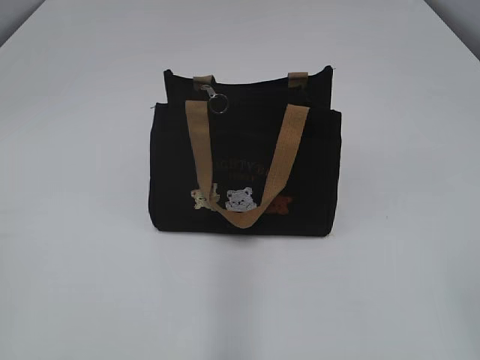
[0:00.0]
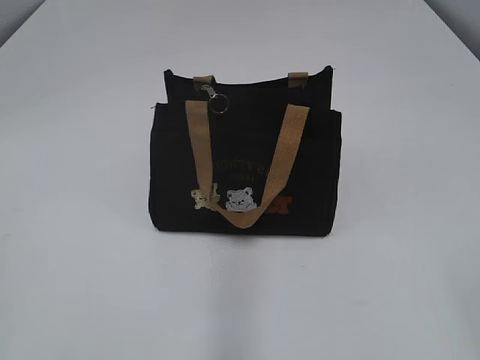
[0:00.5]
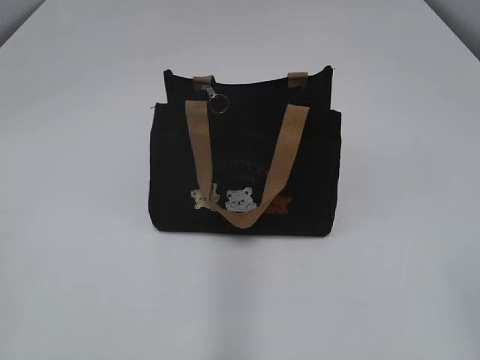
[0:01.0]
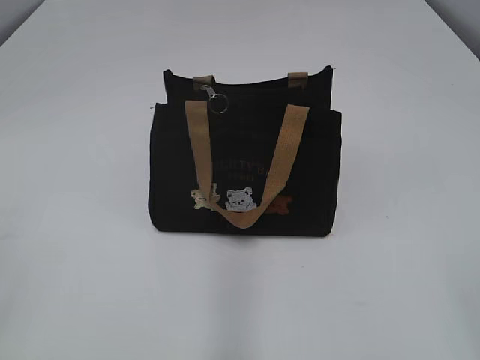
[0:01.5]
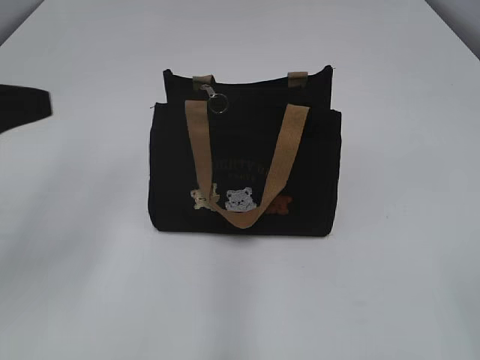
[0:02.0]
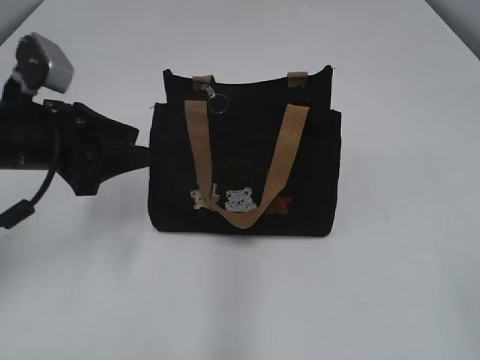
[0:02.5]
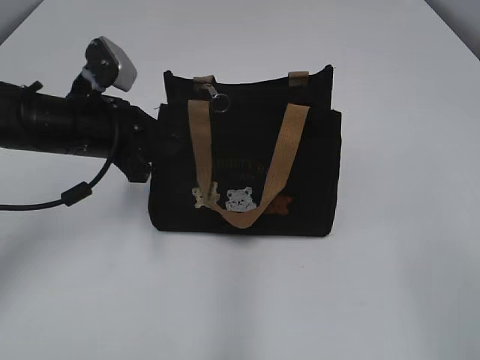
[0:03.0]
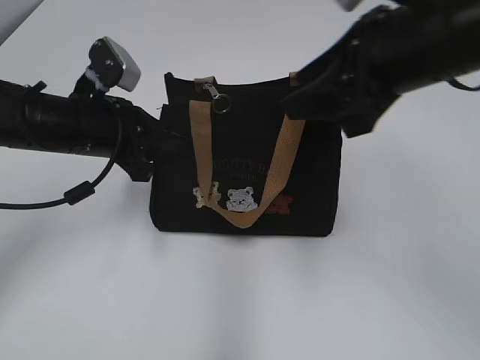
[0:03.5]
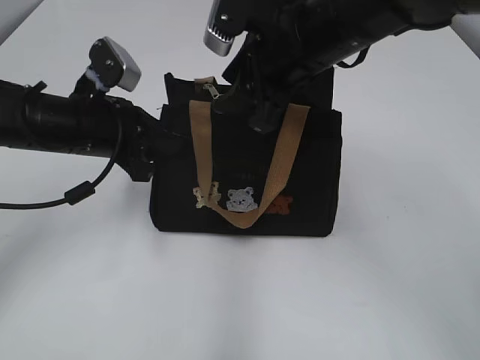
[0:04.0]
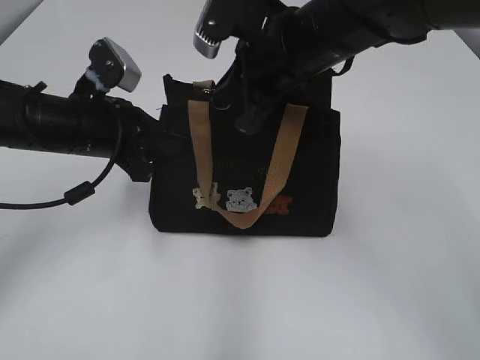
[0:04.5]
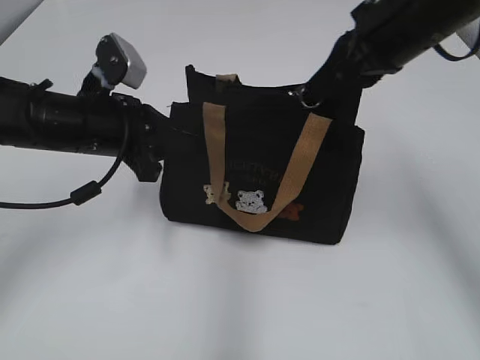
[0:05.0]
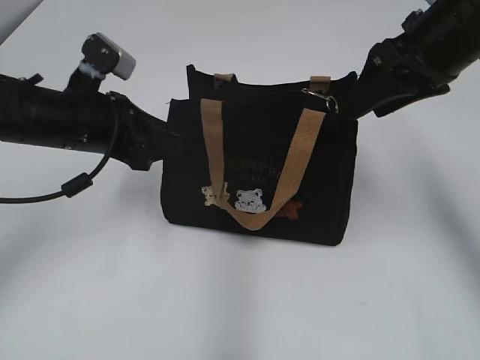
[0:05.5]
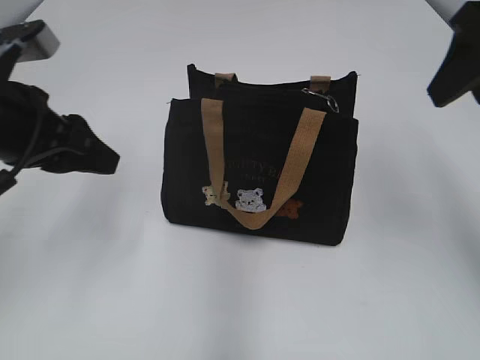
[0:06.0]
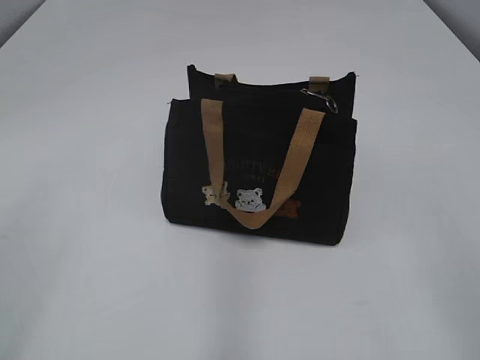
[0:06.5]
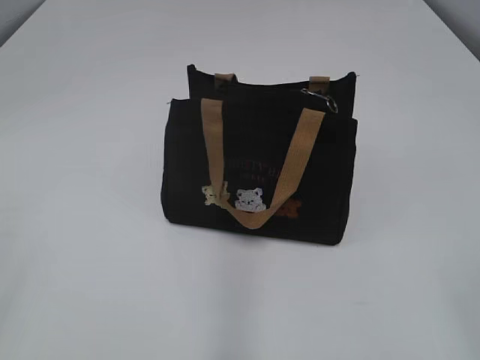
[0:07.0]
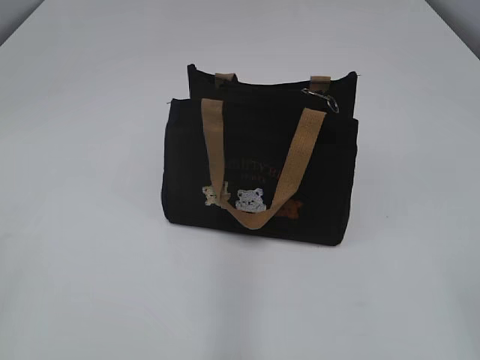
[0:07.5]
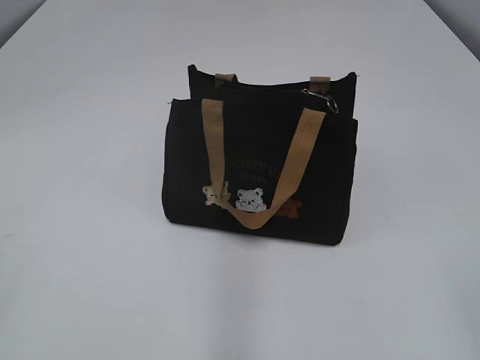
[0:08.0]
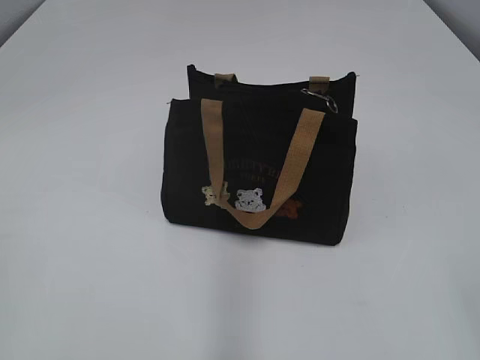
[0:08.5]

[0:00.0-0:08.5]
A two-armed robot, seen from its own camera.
Step, 0:00.0 to 0:05.0: Pull open the zipper with your right hand.
0:02.0 to 0:04.0: The right gripper shifts some 40 cm forward and to the left. Meanwhile the left gripper travels forward, downward and to the right by some 20 cm, and closes its fingers.
0:04.0 to 0:06.5: The right gripper goes roughly 30 cm backward and to the right, and closes, then opens again; the left gripper is displaced backward, upward and to the left by roughly 30 cm, and opens.

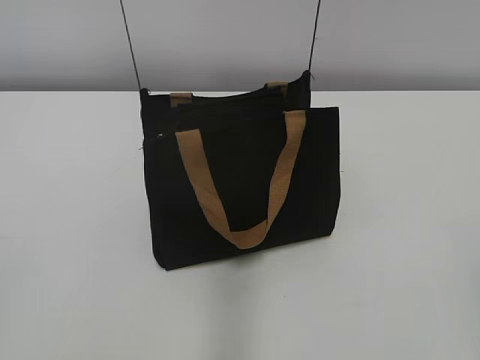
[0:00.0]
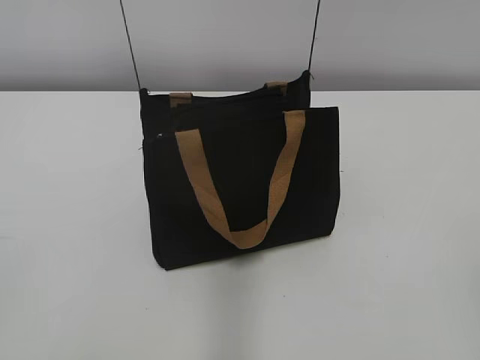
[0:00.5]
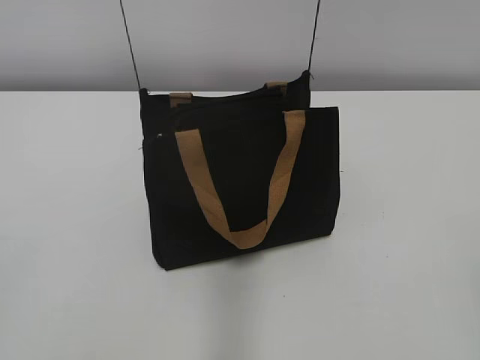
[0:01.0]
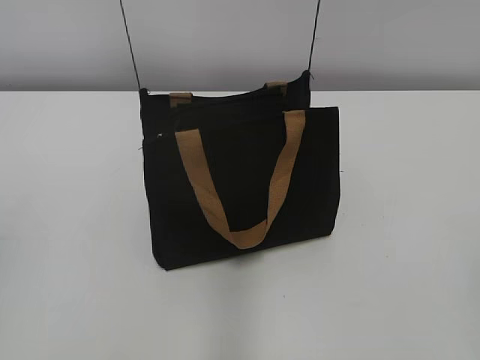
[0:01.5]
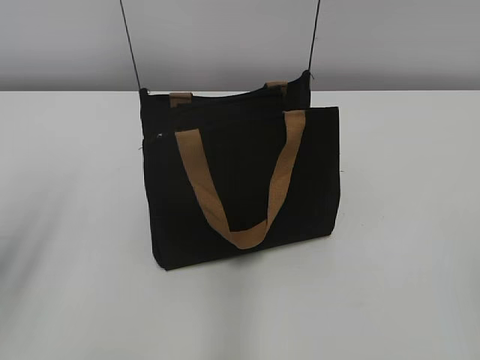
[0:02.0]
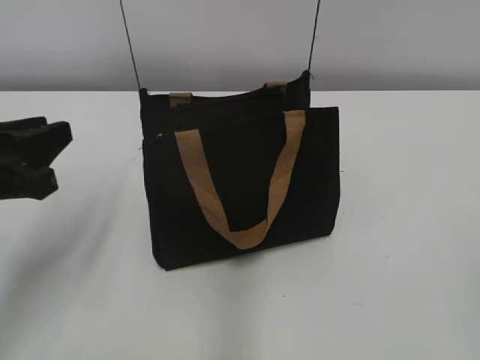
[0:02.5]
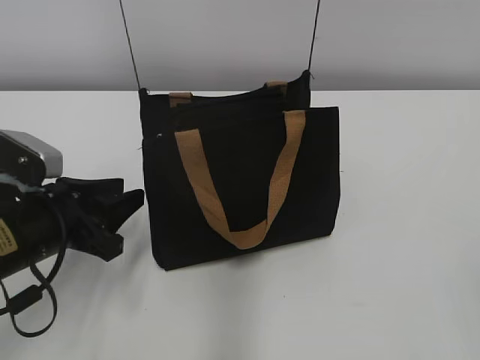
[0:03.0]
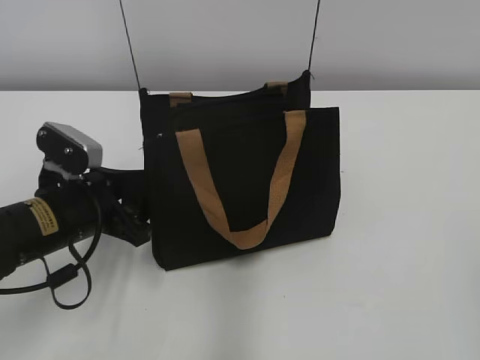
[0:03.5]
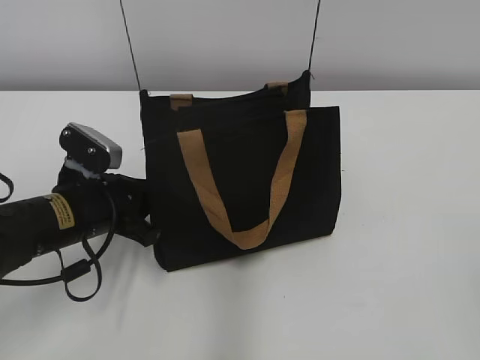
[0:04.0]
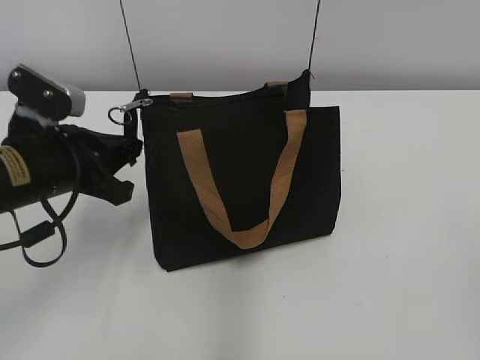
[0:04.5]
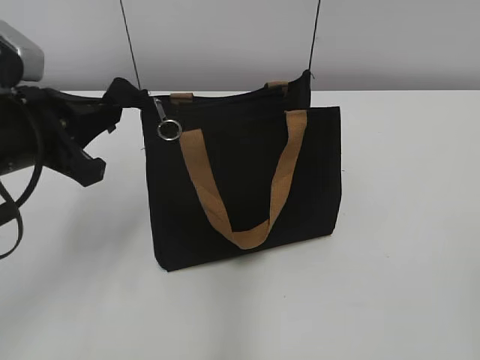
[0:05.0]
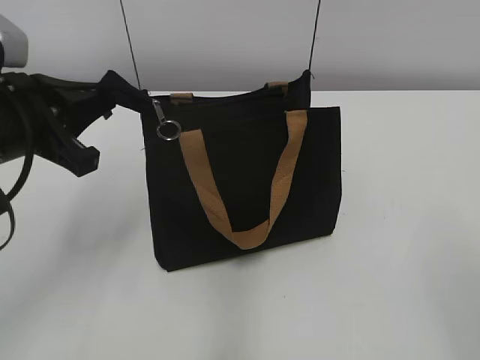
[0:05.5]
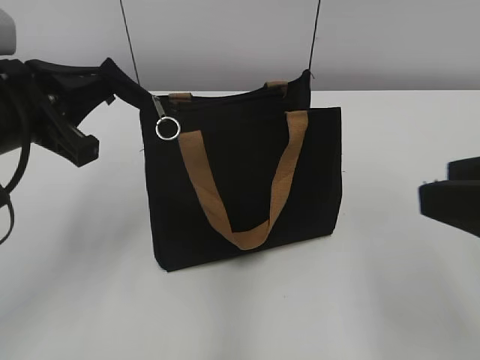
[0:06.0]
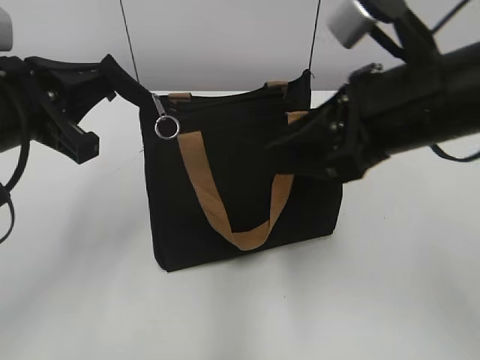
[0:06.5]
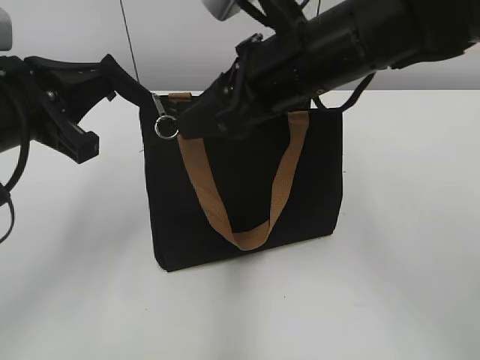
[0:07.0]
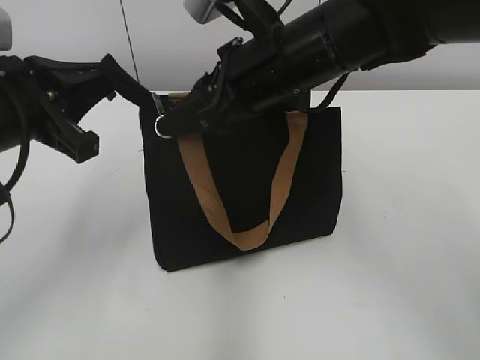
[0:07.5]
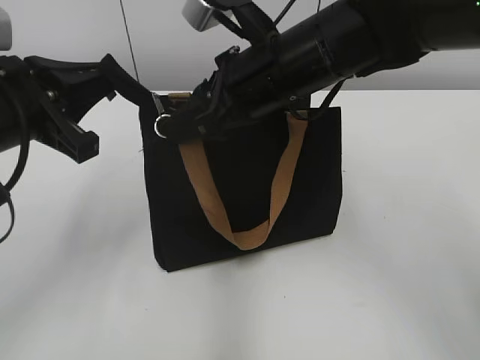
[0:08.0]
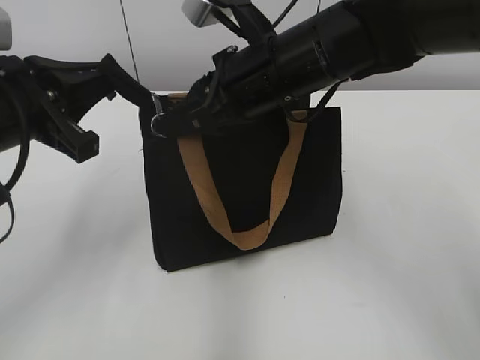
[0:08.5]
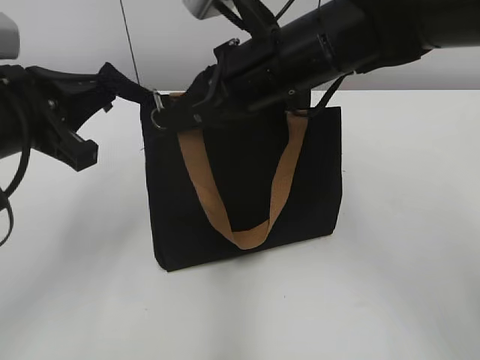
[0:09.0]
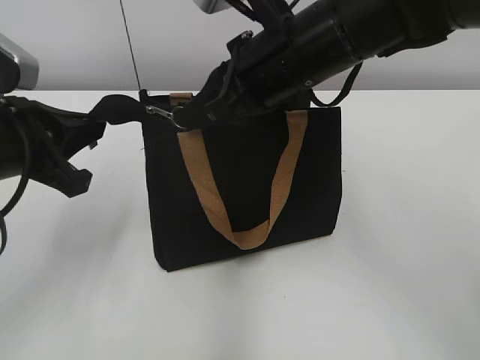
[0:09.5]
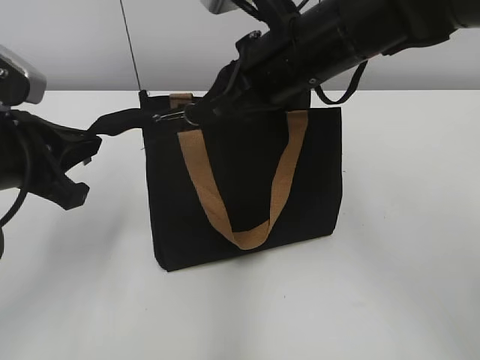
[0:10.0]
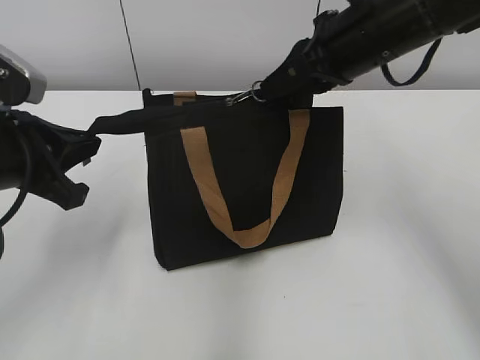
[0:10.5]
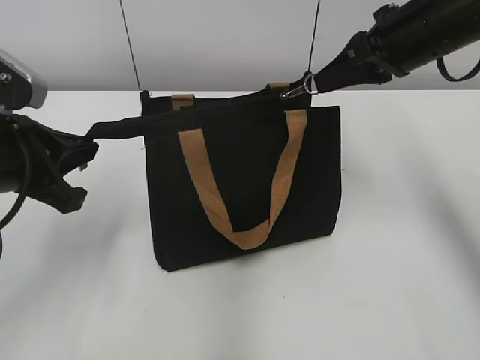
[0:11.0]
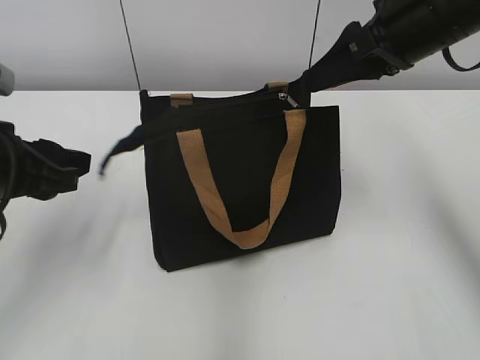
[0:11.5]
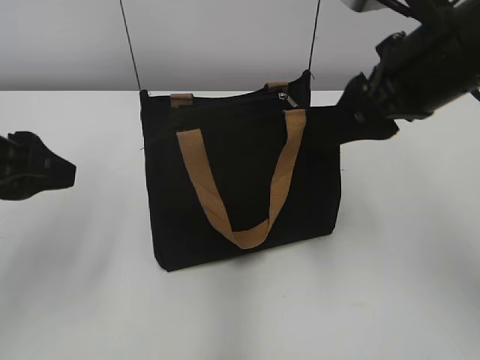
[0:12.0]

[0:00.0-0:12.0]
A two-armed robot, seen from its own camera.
Step, 0:00.0 to 0:11.0: Zip up the bag with your right hand.
0:02.0 to 0:04.0: The left gripper shifts about 25 cm downward, forward and to the right, and closes up.
0:04.0 to 0:06.0: The right gripper goes roughly 15 cm forward and to the left. Meanwhile the left gripper goes roughly 15 cm upward.
0:06.0 to 0:08.0: The right gripper goes approximately 25 cm forward and to the left.
0:08.0 to 0:10.0: The right gripper closes.
0:10.0 to 0:12.0: The left gripper opens its fingers, while the right gripper goes approximately 10 cm to the right, and opens.

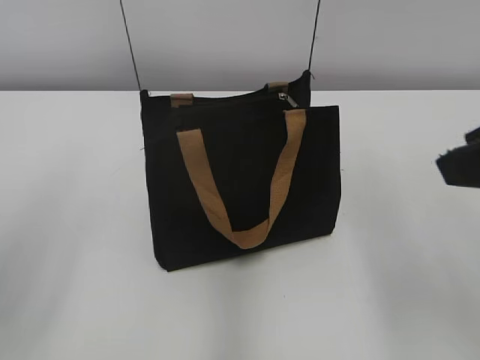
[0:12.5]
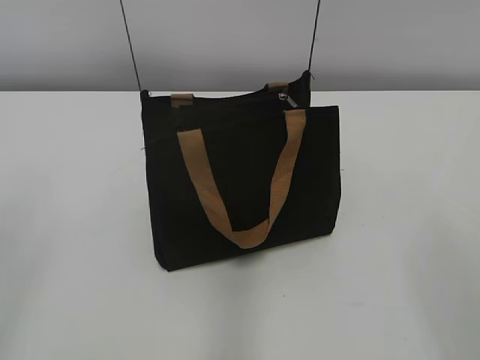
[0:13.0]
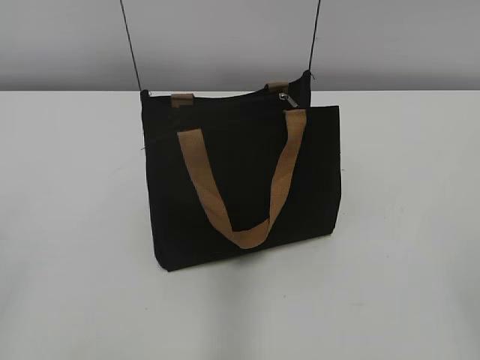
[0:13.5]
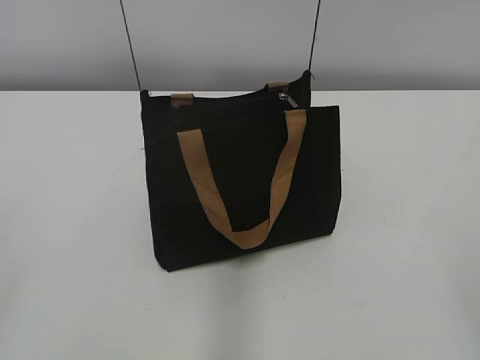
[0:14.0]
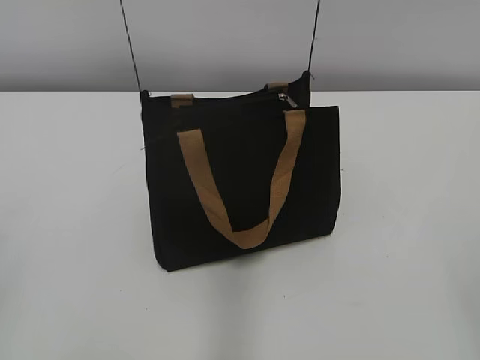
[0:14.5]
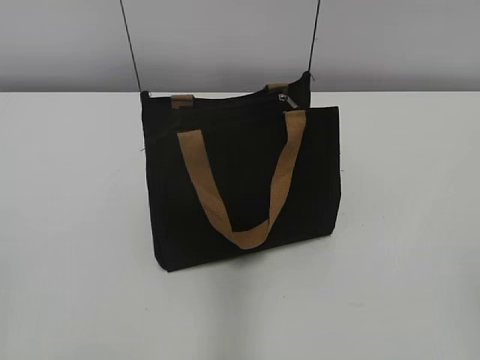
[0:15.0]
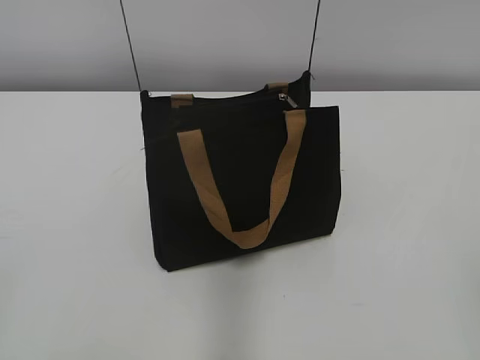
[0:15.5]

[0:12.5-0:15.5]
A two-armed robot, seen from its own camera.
0:12.5 to 0:14.0: The right gripper travels backward and to the right by about 20 cm.
